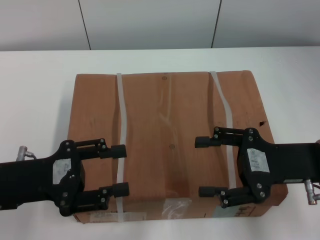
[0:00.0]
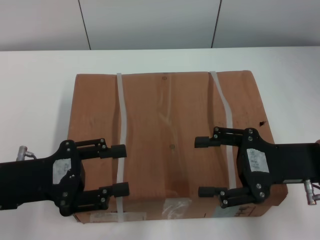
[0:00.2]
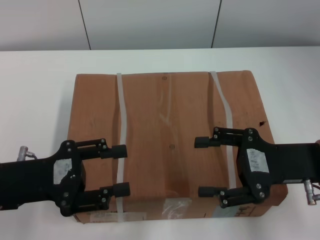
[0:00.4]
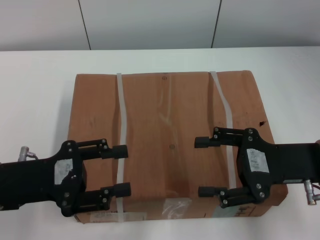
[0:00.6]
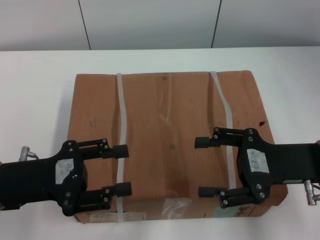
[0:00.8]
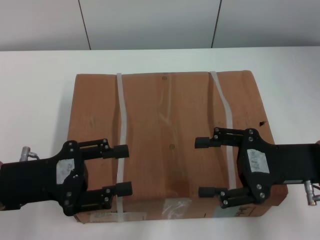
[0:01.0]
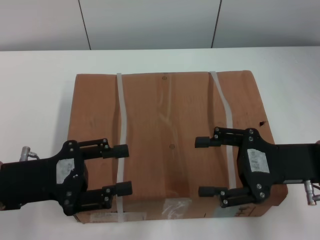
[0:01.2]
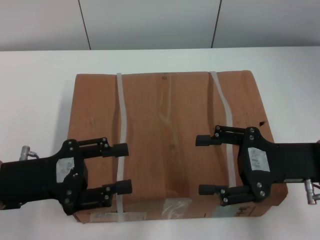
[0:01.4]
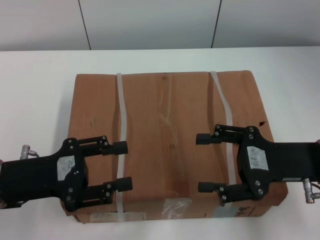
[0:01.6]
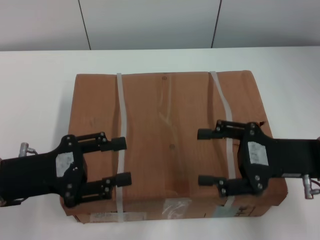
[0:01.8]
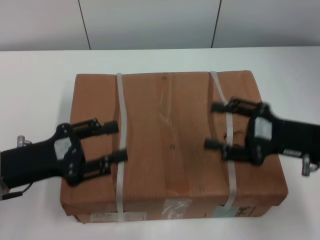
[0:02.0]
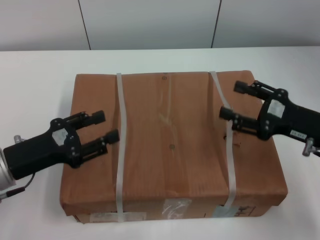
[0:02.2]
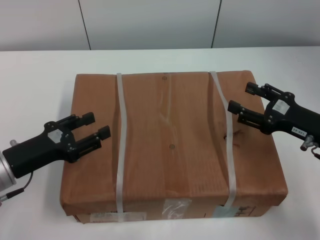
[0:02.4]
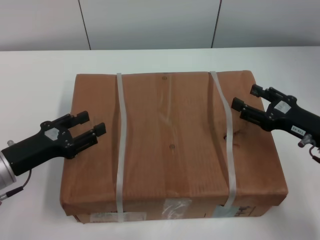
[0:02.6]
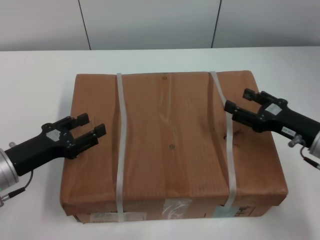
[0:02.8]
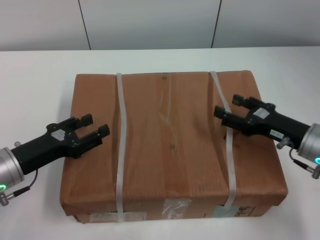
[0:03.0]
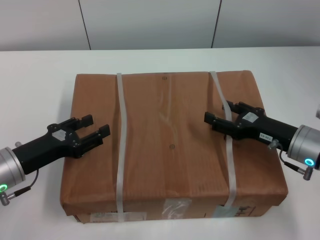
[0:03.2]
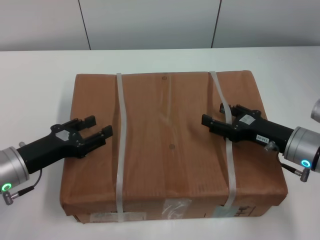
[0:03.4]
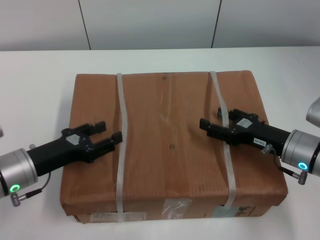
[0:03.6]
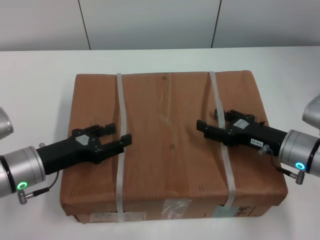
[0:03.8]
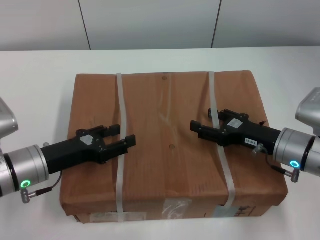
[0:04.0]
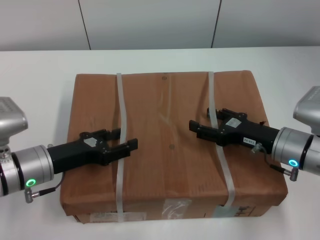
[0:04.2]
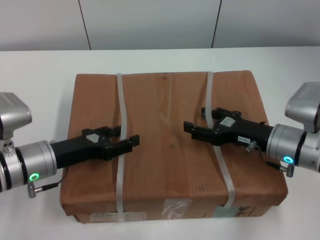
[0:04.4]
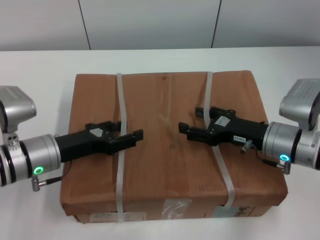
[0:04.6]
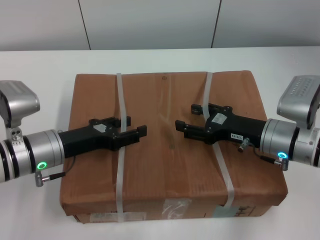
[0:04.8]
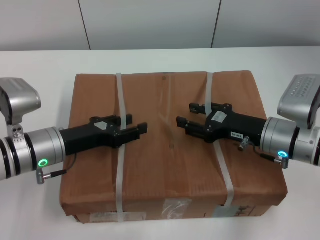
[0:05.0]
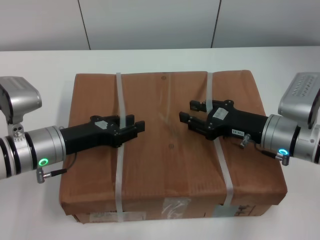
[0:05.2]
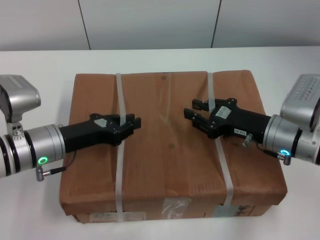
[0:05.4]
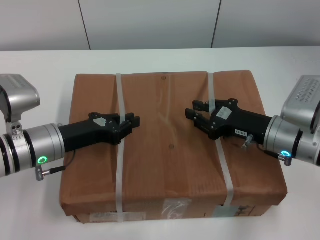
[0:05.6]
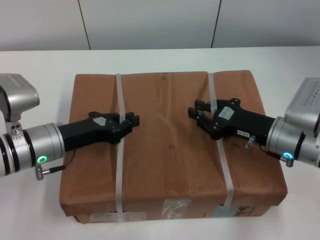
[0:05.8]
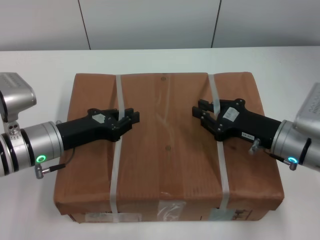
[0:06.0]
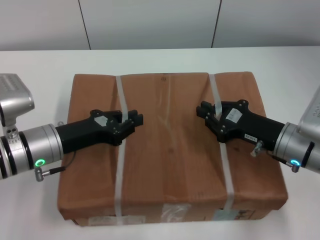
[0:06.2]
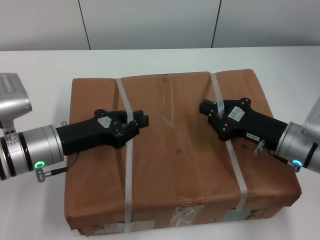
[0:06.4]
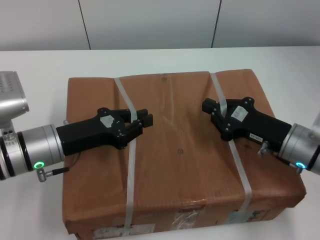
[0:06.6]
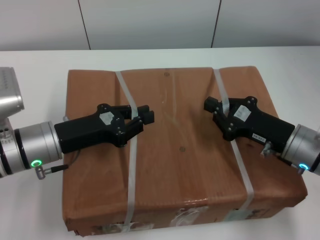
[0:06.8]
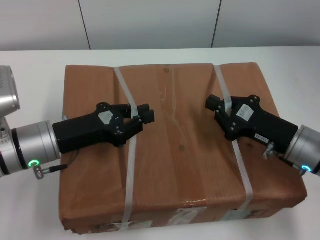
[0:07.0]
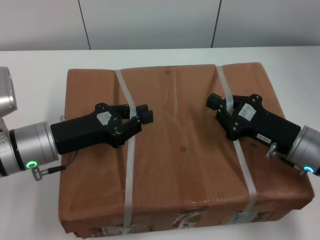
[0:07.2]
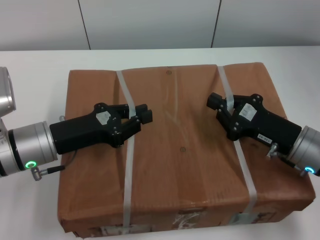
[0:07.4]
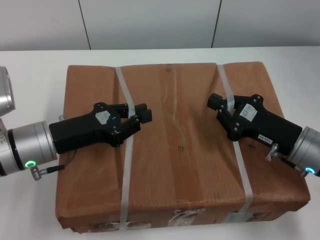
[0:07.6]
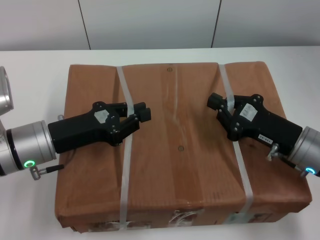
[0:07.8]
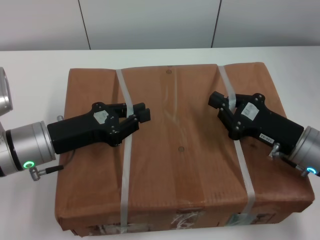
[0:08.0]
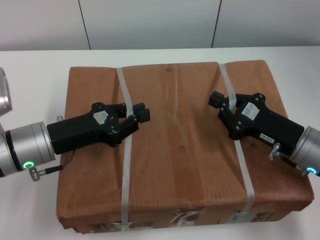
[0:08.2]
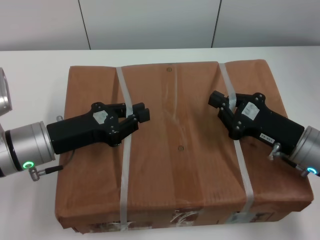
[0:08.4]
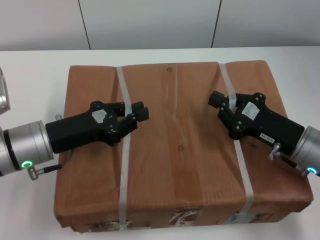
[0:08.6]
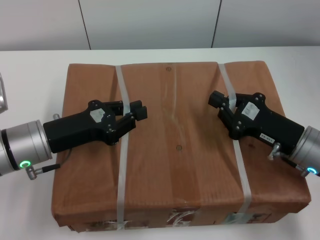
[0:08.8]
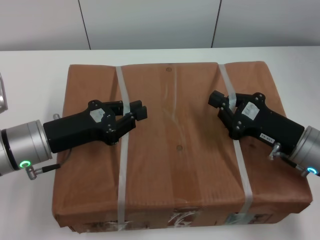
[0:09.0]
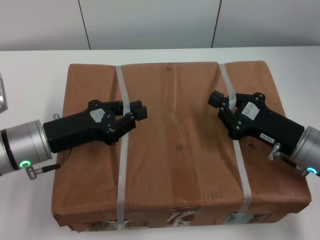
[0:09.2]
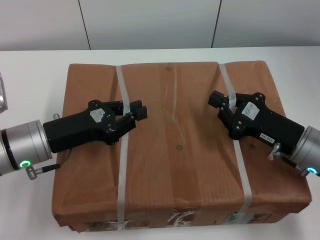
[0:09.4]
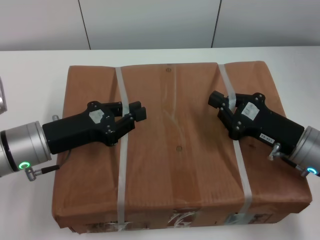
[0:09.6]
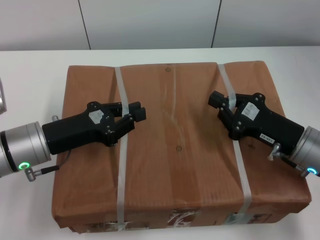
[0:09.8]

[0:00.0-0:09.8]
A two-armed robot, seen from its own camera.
Task of the whole recording: pick up the box from the table with both arms.
Step, 0:00.8 to 0:06.0: Grasp the bandage with left gripper.
Step, 0:00.8 to 0:06.0: Grasp the bandage with right gripper.
Step, 0:06.2 to 0:07.2: Lift the box with left gripper.
Step, 0:06.2 to 0:07.2: Lift the box with right gripper.
0:00.0 to 0:01.4: The two grippers keep their place.
0:01.4 to 0:02.8: Both grippers travel together downward, some 5 cm.
0:02.8 to 0:04.2: The right gripper changes place by approximately 5 cm.
0:04.2 to 0:05.6: The right gripper closes up; the left gripper closes up.
0:05.6 to 0:07.0: The right gripper closes.
0:07.0 to 0:09.8: The two grippers keep their place.
